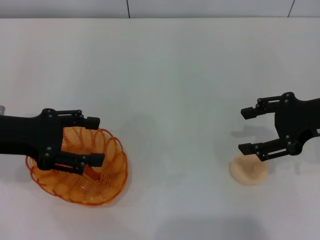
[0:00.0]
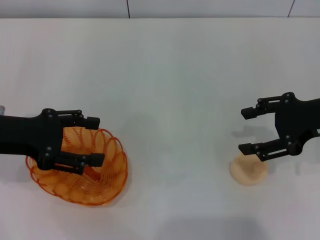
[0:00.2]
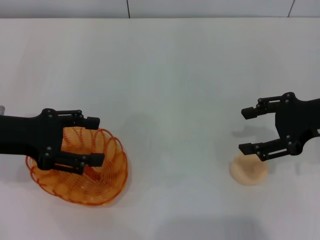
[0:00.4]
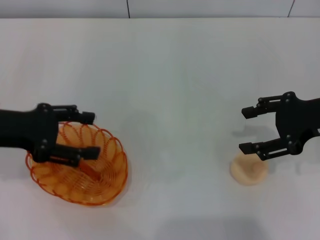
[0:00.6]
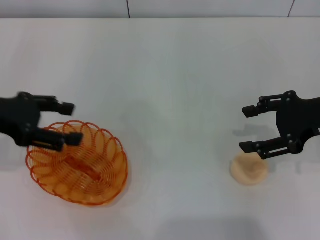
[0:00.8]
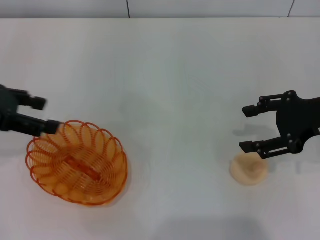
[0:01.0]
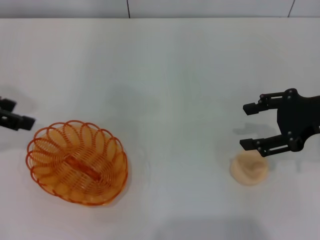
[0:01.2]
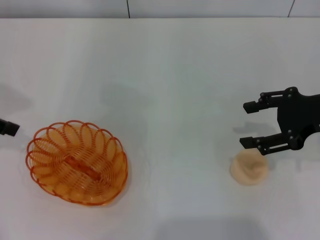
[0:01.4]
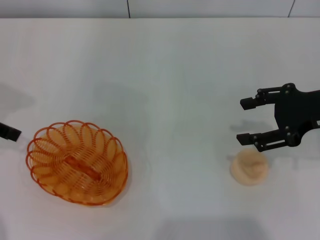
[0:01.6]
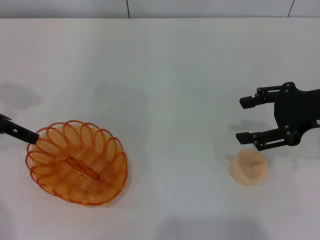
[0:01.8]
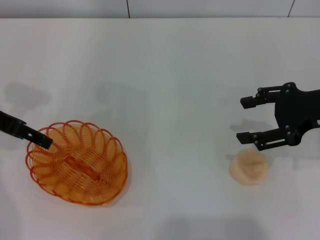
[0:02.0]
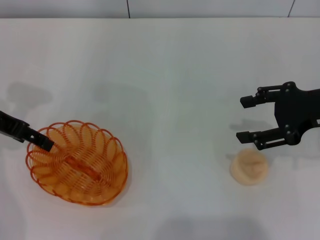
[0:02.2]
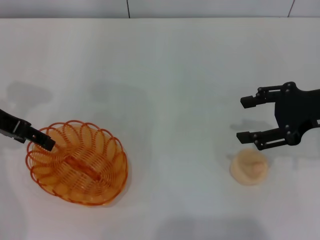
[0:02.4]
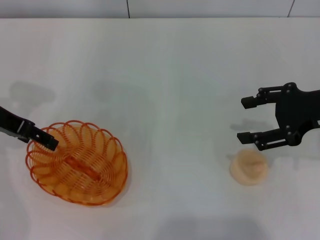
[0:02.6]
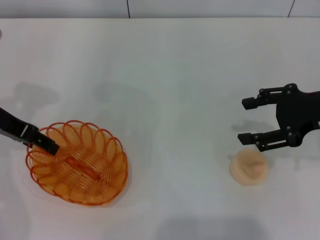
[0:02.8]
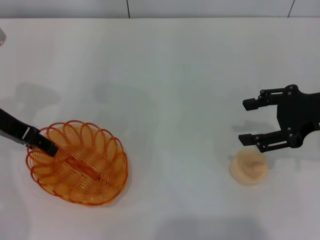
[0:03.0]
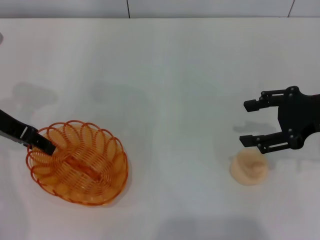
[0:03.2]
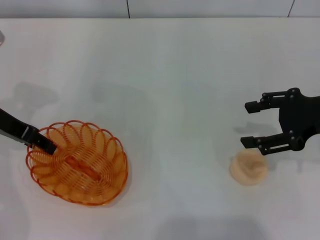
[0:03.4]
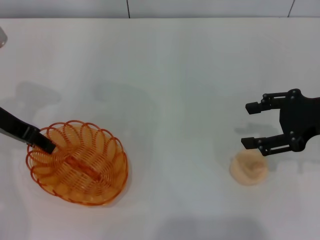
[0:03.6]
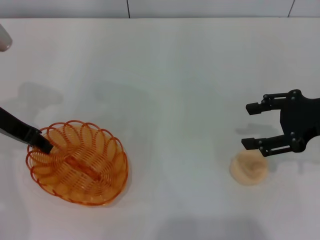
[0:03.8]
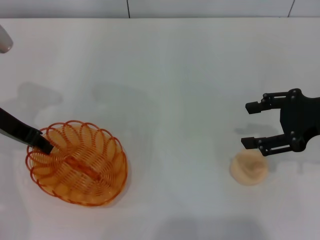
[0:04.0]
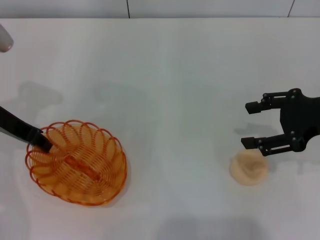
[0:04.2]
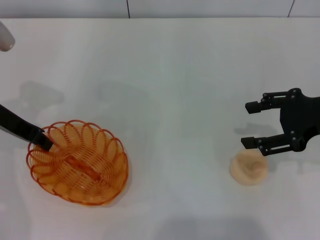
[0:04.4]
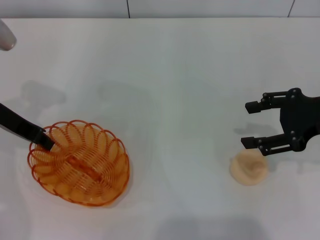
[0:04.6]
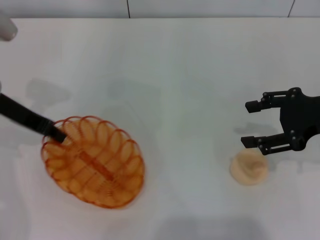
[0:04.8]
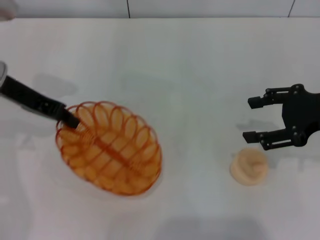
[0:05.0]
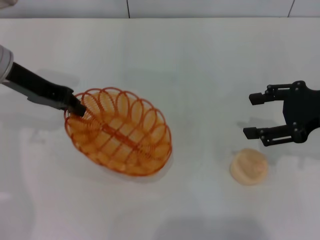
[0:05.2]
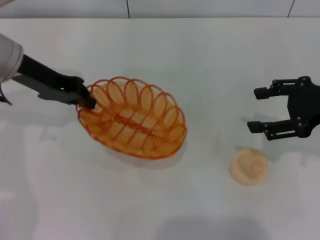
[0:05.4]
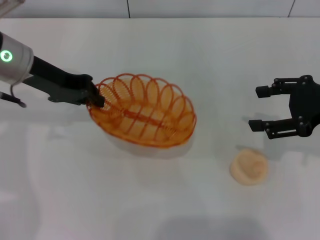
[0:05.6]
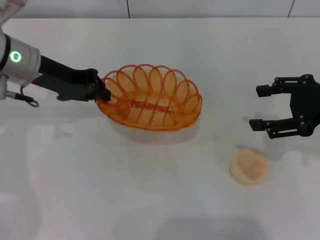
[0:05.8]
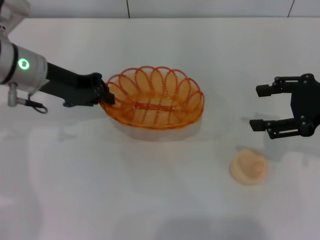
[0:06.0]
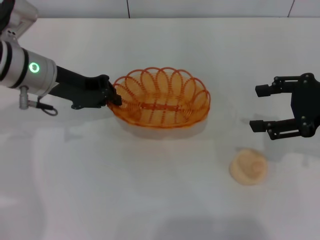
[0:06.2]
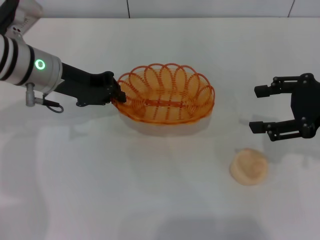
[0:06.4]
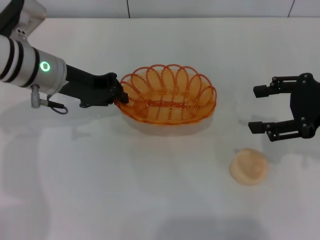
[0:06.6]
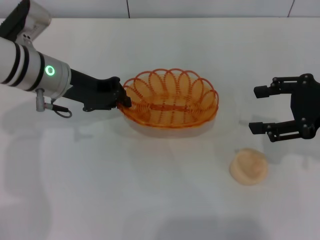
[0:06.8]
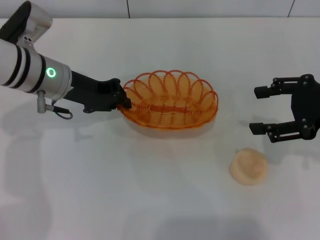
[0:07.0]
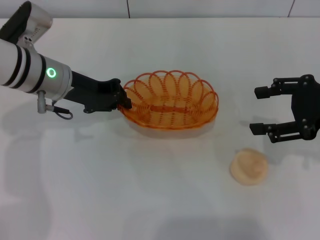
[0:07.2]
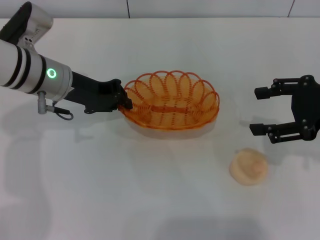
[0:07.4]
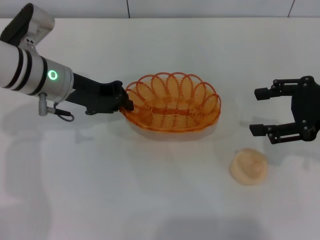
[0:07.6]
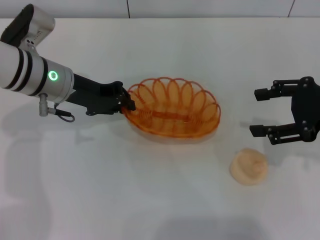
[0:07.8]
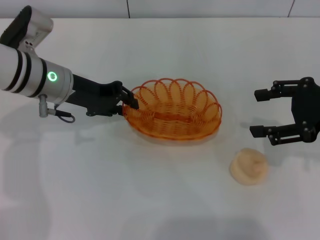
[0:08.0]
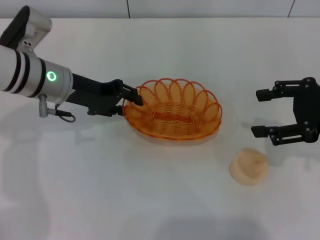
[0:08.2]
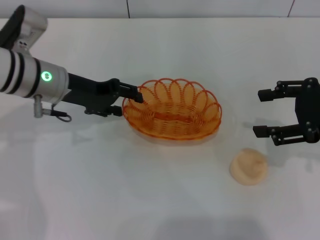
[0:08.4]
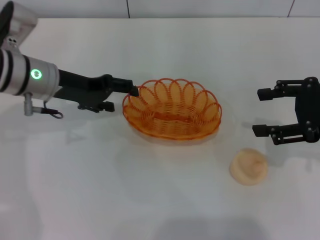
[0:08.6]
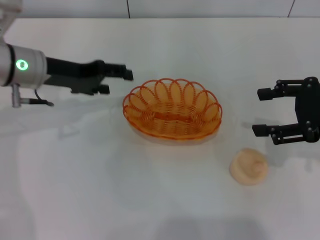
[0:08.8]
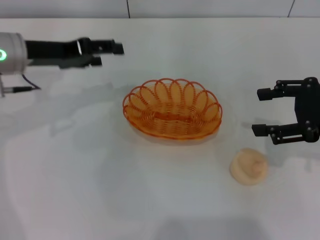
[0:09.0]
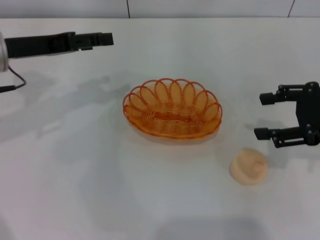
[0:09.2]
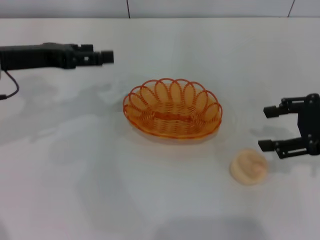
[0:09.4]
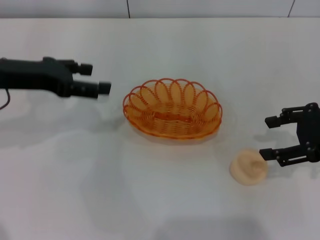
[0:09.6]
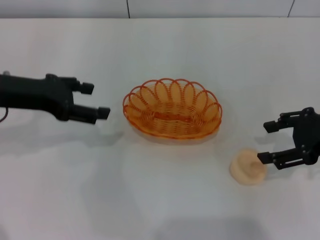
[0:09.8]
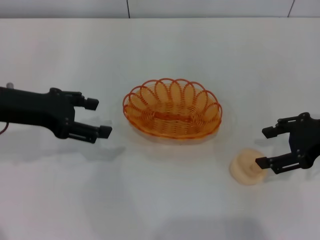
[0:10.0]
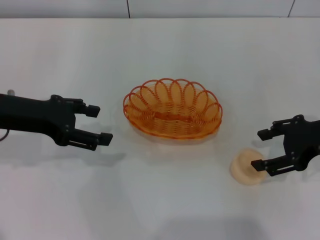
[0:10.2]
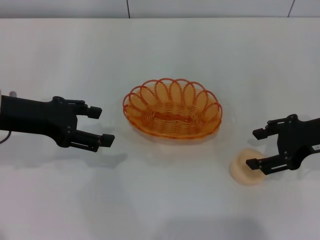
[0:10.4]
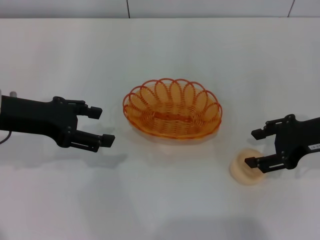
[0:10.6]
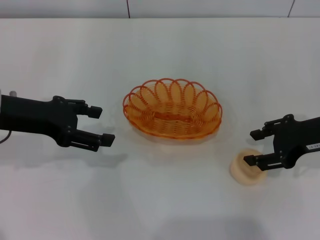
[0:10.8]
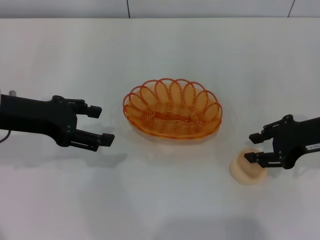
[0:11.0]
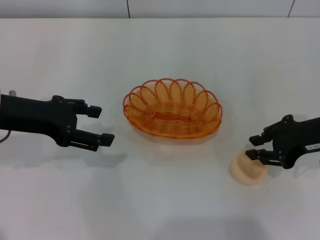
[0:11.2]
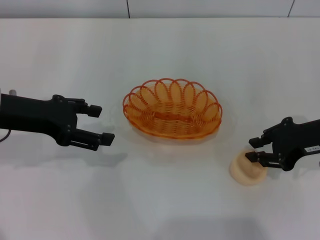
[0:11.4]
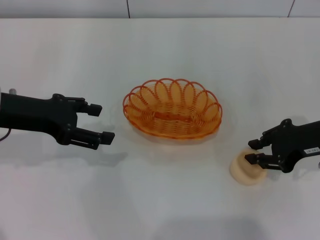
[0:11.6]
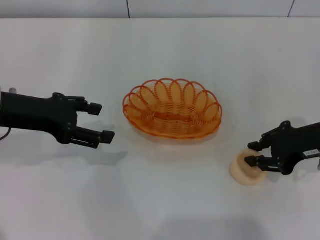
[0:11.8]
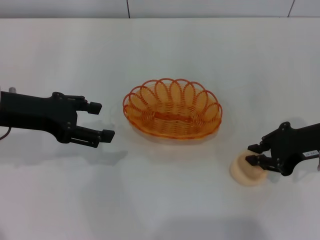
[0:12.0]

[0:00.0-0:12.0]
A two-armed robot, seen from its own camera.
Step, 0:00.0 to 0:05.2: Pick up the basket with the left gripper.
Step, 0:05.4 to 0:09.0: Place the basket in the center of view with the left gripper.
0:00.0 to 0:01.6: The left gripper shifts some 5 cm upward.
0:01.6 to 0:03.0: The left gripper shifts roughly 5 cm downward and to the right.
0:03.0 to 0:04.4: The left gripper closes up.
0:04.4 to 0:06.0: The left gripper heads to the right, covering some 5 cm.
0:06.0 to 0:07.6: The grippers stay close to where they were, moving slightly.
0:07.6 to 0:09.0: The left gripper heads to the left, covering approximately 5 cm, and opens up.
0:09.0 to 0:10.4: The left gripper heads backward, covering approximately 5 cm.
0:10.4 to 0:12.0: The right gripper closes up.

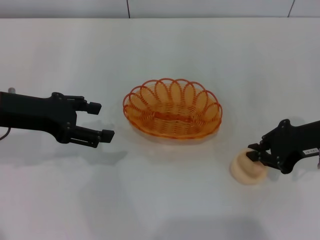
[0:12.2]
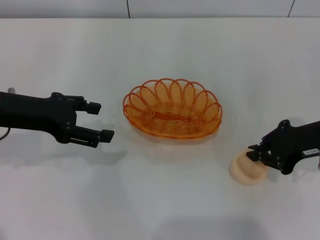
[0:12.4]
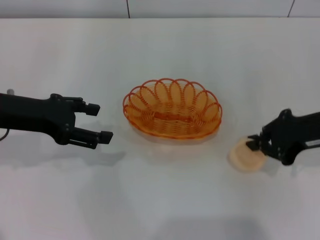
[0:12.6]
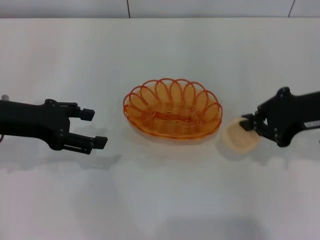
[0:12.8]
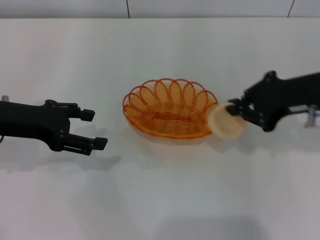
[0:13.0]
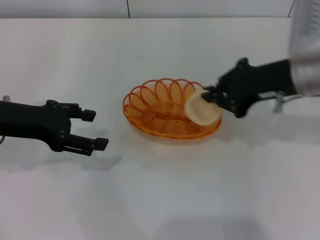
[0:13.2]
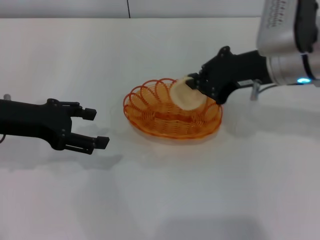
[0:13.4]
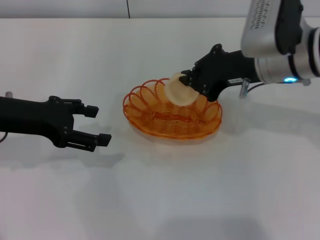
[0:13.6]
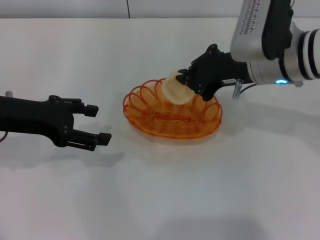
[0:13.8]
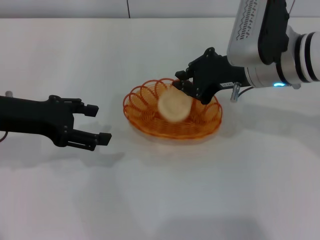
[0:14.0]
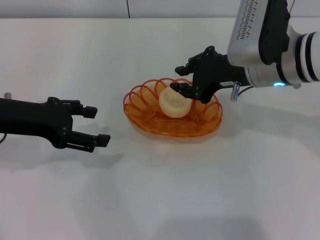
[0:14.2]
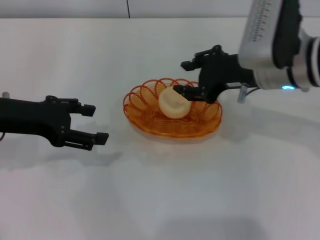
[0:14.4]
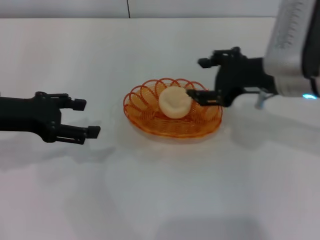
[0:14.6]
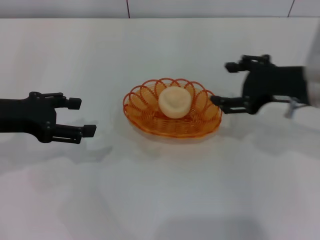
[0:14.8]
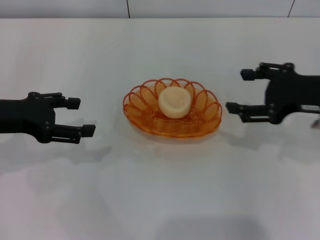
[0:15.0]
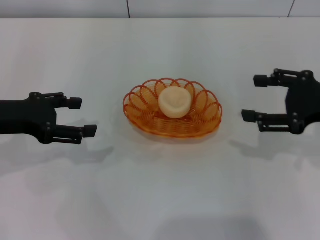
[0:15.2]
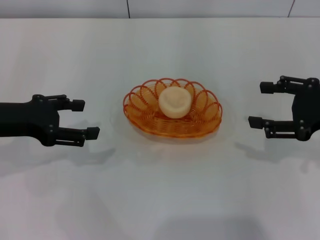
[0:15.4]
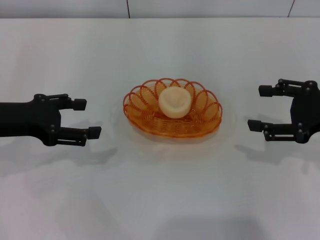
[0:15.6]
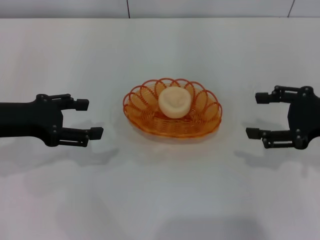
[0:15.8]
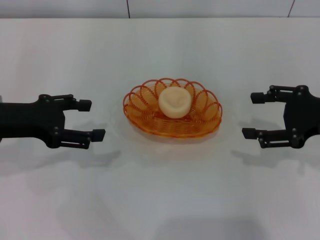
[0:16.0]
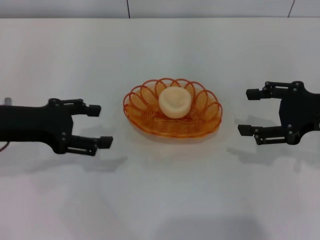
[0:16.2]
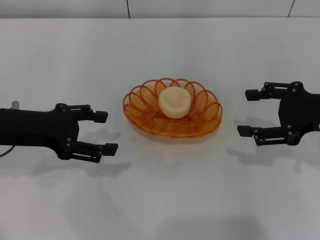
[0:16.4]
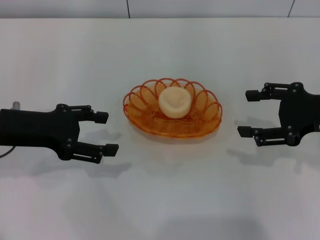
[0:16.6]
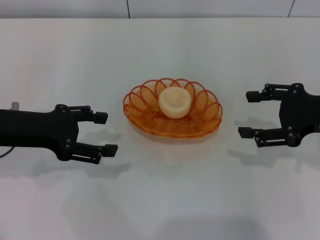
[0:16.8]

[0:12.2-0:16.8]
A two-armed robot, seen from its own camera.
Step, 0:13.2 to 0:14.8: Place the egg yolk pastry into the basket with the right gripper.
0:12.2 to 0:13.8: The right gripper moves to the left and forward, about 10 cm.
0:13.8 to 0:15.2: The right gripper is displaced to the right and backward by some 15 cm, and opens up.
0:15.2 to 0:16.8: The grippers stay close to where they were, moving slightly.
